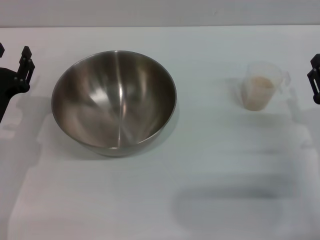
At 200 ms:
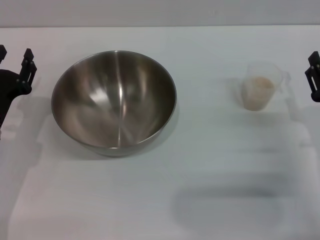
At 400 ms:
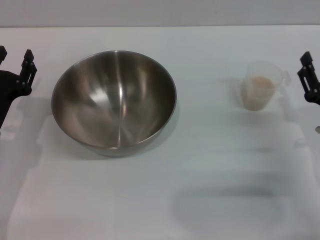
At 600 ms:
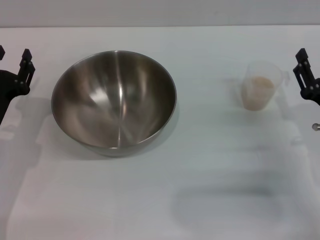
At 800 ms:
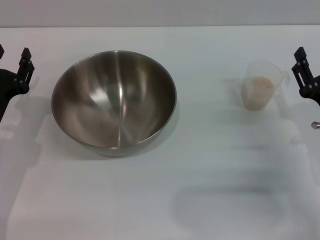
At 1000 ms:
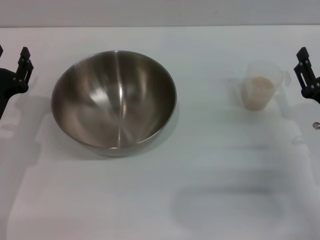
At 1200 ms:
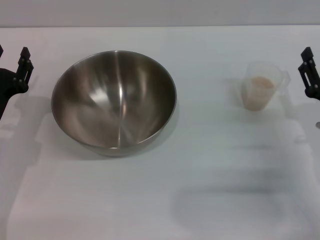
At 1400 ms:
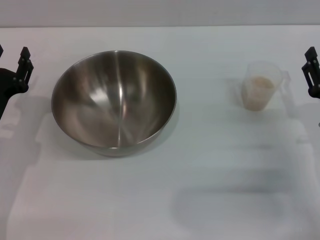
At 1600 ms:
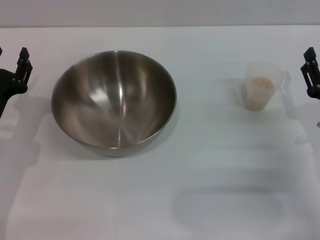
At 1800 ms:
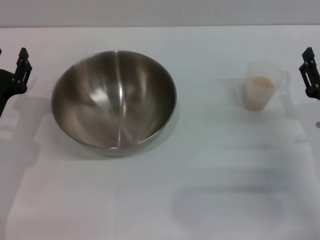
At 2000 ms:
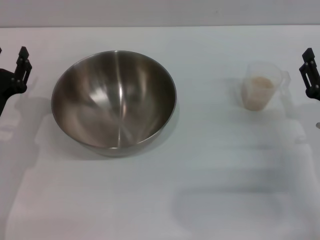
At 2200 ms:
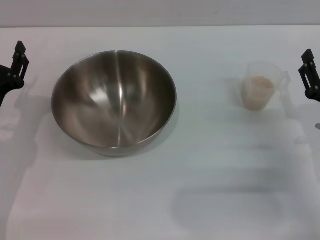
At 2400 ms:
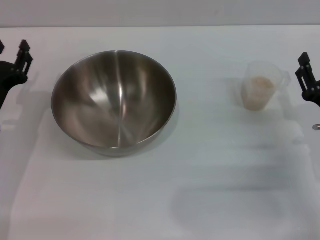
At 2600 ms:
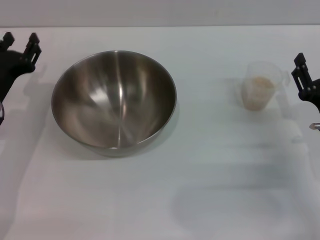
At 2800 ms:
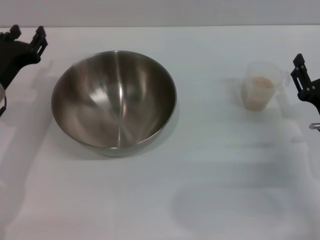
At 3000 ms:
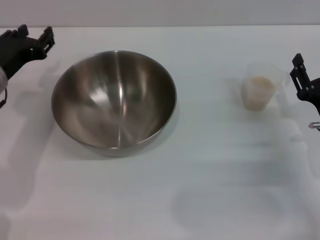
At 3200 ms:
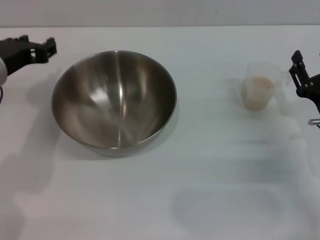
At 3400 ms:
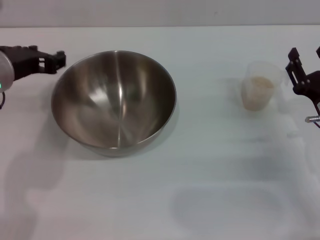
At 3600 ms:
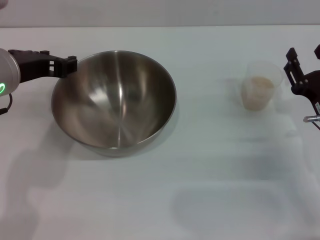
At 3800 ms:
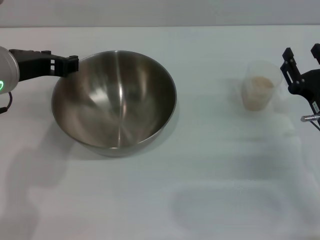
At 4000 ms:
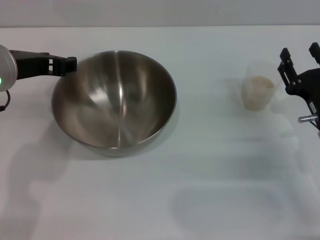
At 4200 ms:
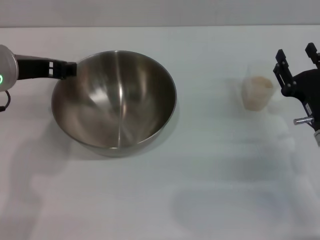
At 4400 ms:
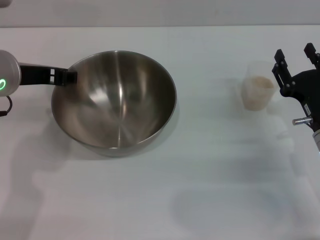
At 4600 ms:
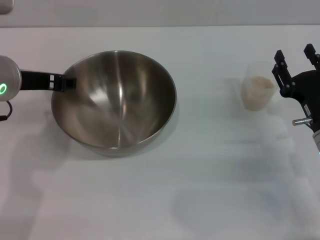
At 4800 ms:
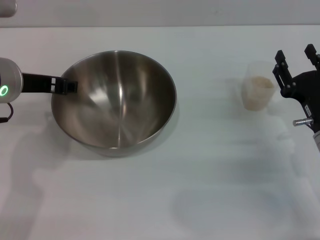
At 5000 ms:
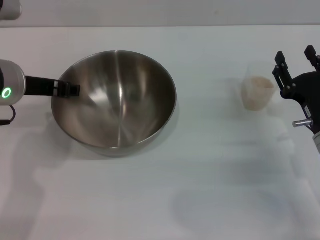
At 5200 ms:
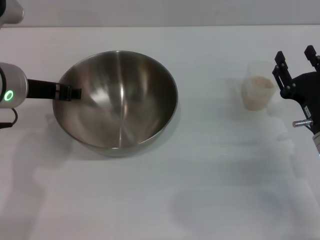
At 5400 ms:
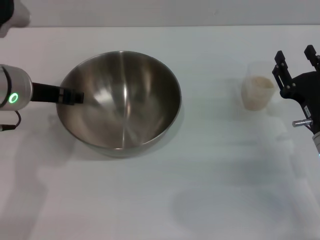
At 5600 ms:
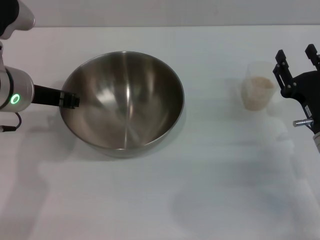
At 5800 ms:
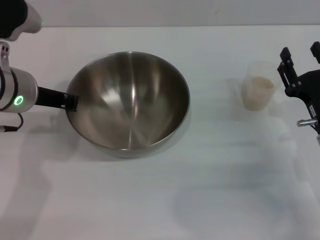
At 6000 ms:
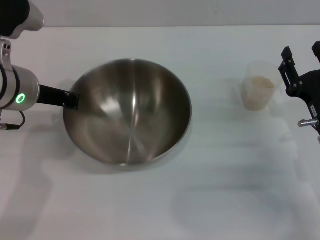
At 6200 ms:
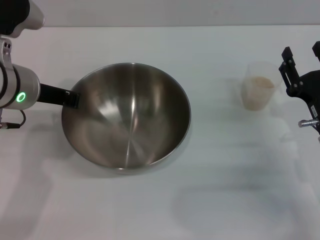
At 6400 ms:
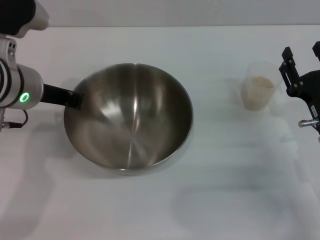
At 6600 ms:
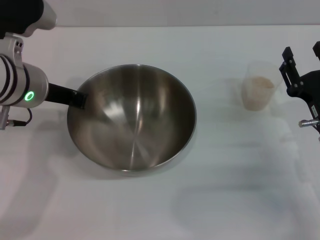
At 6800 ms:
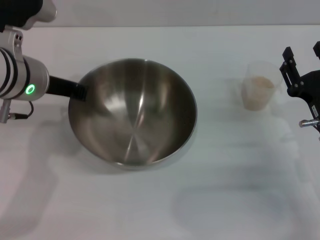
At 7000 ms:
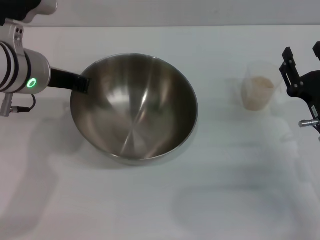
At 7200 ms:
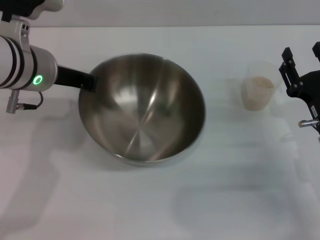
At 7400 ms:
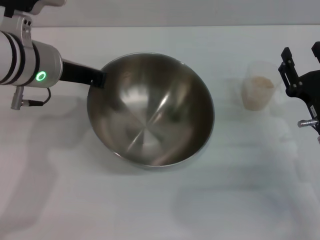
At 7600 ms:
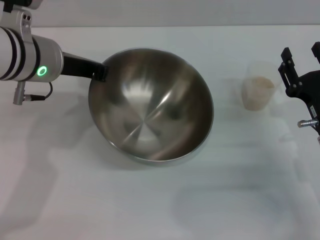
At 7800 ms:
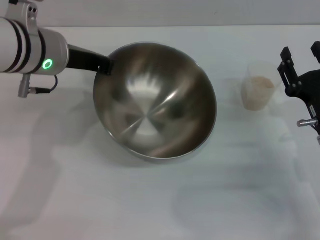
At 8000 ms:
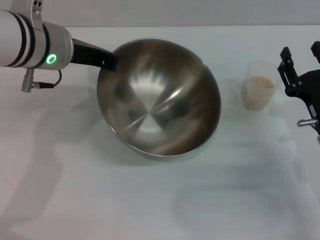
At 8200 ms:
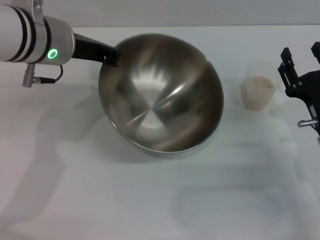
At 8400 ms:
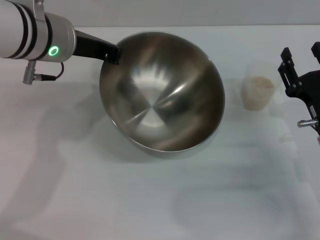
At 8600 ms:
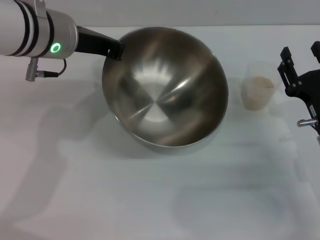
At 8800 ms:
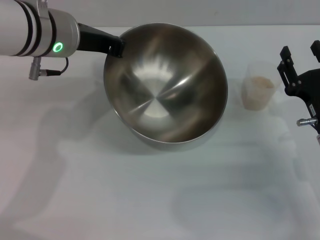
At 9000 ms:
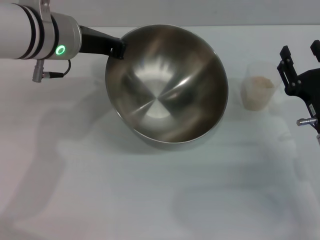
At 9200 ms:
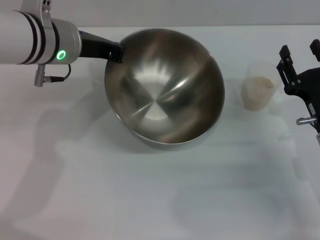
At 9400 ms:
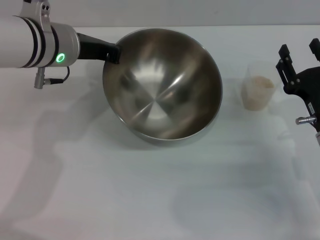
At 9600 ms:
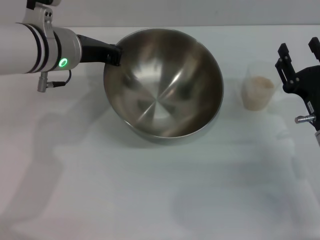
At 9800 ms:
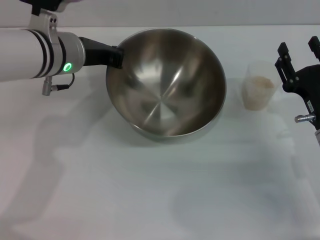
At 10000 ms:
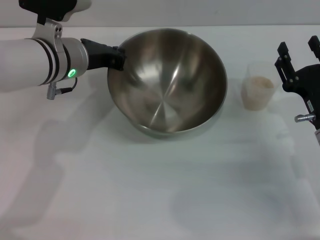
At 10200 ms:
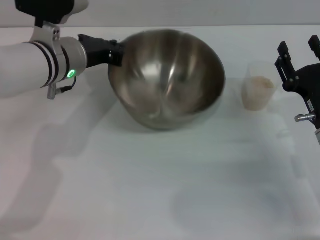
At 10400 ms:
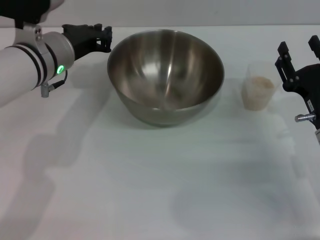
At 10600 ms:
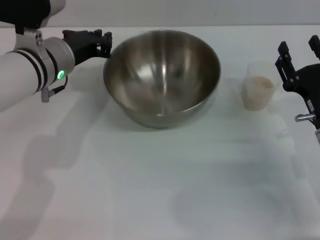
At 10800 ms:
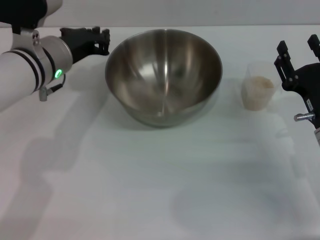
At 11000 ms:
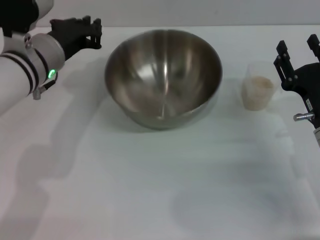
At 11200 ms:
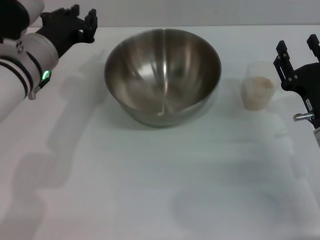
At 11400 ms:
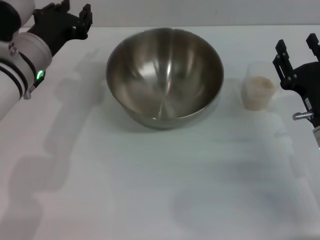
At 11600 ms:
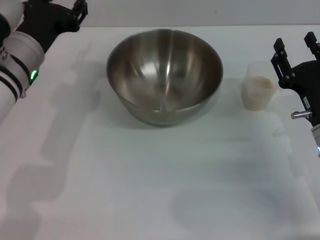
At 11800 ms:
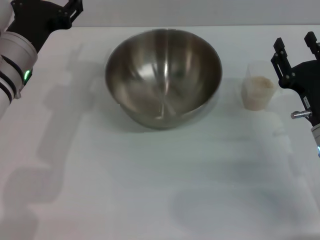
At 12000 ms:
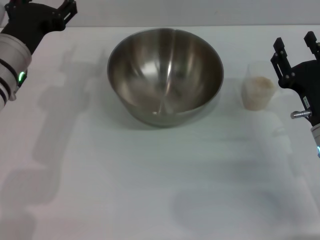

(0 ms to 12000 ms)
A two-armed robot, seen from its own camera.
Task of the whole recording: Place the bowl in the middle of the table with one hand and pour the rice from the grain cup into it with the other hand.
Step, 0 ms - 7400 ms: Pick up the bowl with the left gripper.
Step, 7600 ms - 11400 ms: Place the bowl in the center of view with the left gripper.
0 ms - 1600 ms: The grippers stay close to where they were, moving slightly.
1600 ms - 3000 ms: The left gripper moves upward, about 10 cm.
3000 ms - 4400 ms: The left gripper heads upward, covering approximately 5 cm.
4400 ms - 6000 ms: The left gripper closes.
9000 ms - 10400 ms: The left gripper travels downward by roughly 5 cm.
10400 ms - 12000 ms: The left gripper ends up roughly 5 cm from where it was, and opens up.

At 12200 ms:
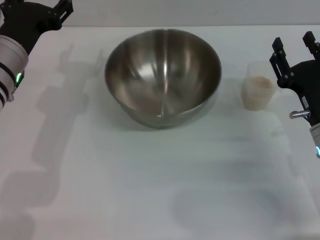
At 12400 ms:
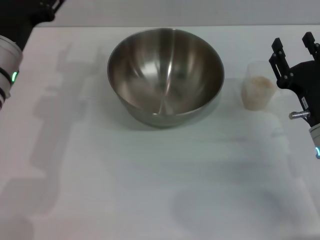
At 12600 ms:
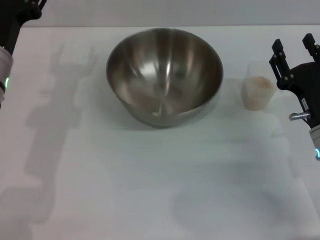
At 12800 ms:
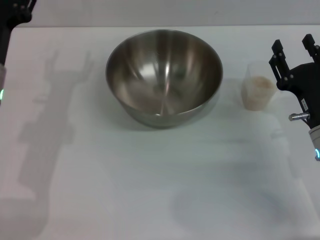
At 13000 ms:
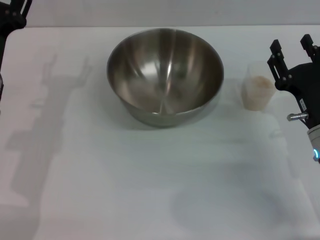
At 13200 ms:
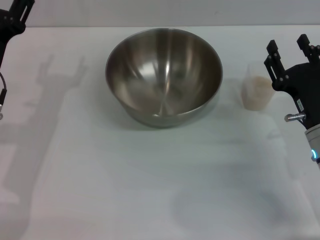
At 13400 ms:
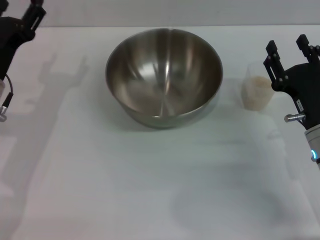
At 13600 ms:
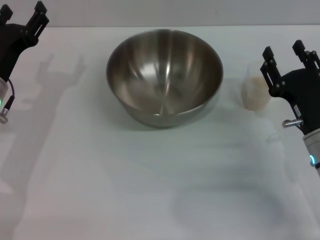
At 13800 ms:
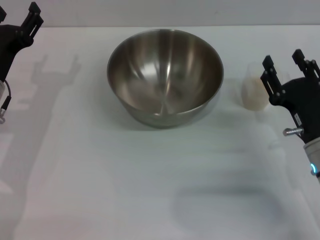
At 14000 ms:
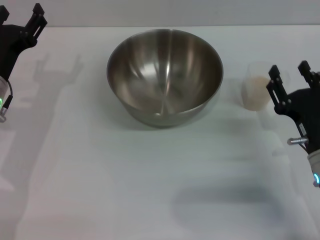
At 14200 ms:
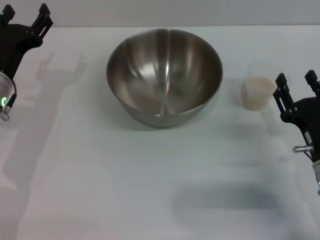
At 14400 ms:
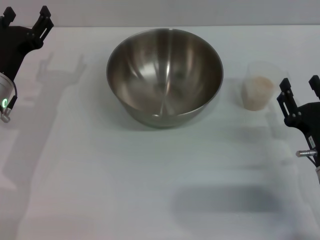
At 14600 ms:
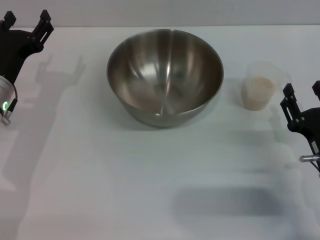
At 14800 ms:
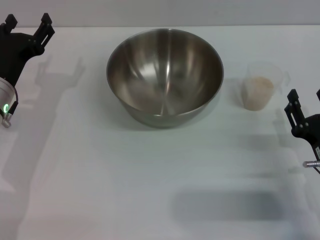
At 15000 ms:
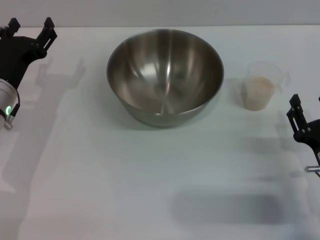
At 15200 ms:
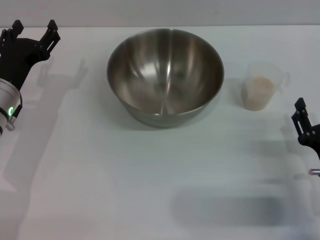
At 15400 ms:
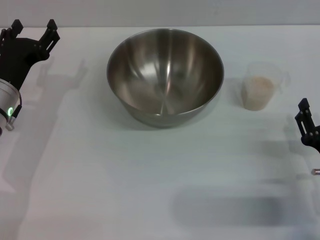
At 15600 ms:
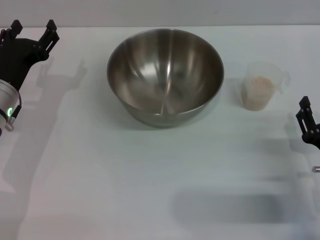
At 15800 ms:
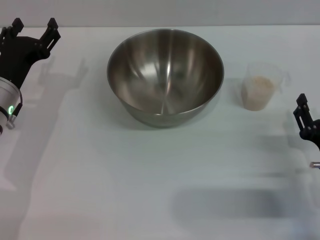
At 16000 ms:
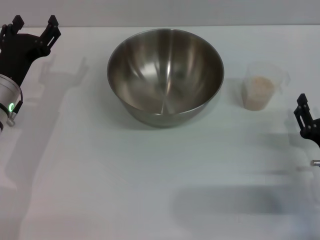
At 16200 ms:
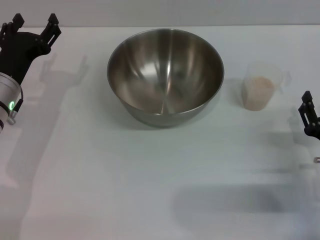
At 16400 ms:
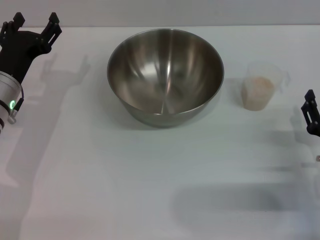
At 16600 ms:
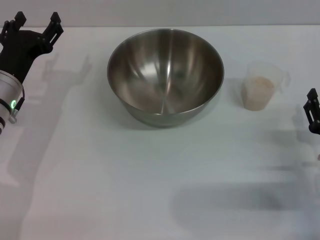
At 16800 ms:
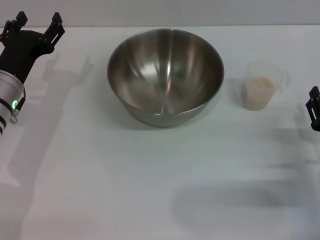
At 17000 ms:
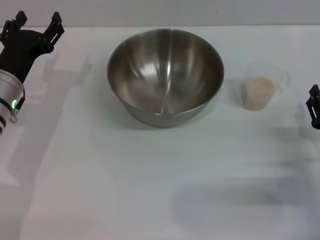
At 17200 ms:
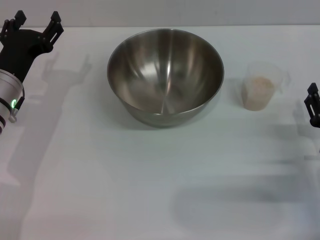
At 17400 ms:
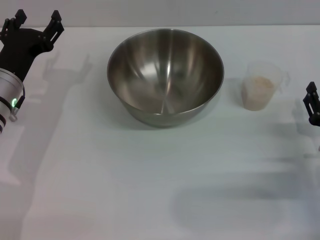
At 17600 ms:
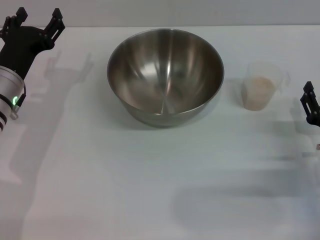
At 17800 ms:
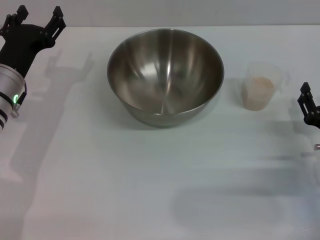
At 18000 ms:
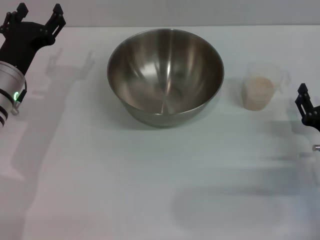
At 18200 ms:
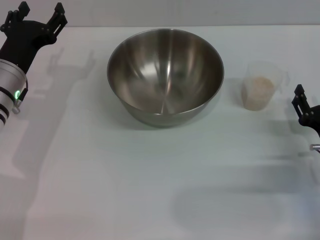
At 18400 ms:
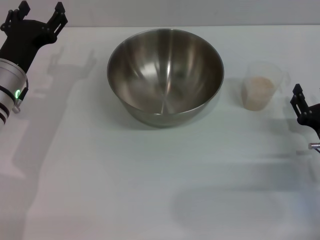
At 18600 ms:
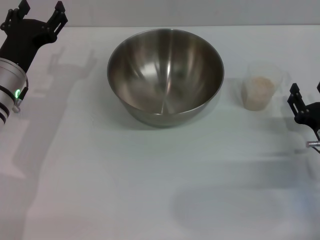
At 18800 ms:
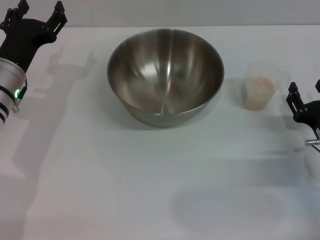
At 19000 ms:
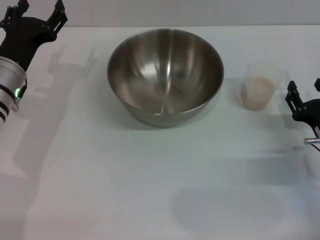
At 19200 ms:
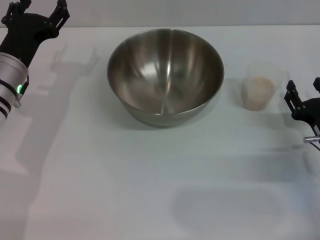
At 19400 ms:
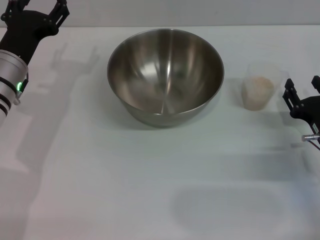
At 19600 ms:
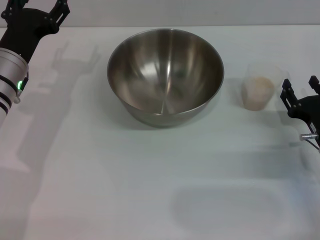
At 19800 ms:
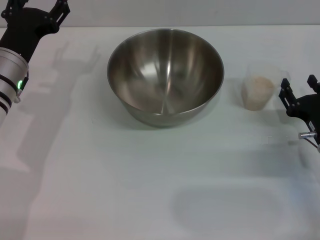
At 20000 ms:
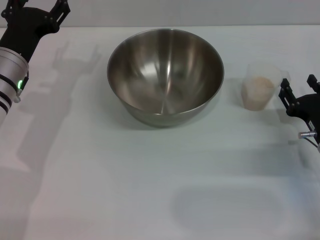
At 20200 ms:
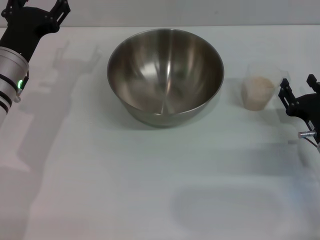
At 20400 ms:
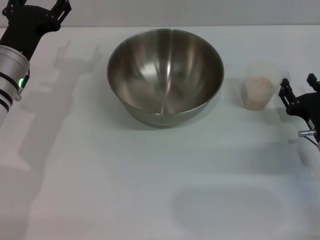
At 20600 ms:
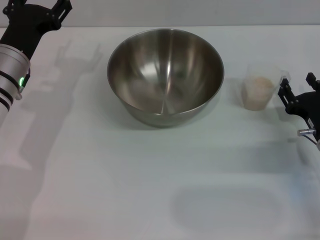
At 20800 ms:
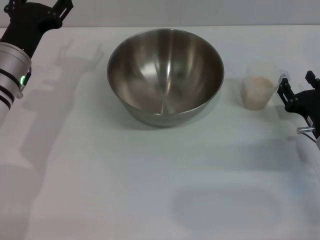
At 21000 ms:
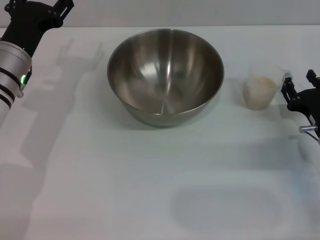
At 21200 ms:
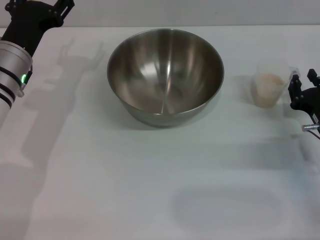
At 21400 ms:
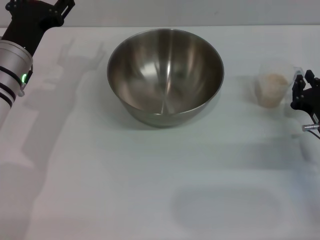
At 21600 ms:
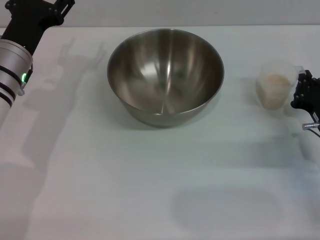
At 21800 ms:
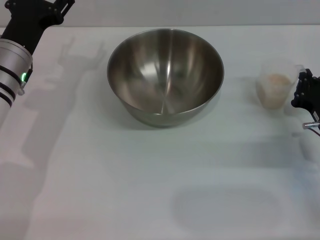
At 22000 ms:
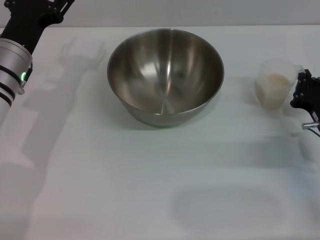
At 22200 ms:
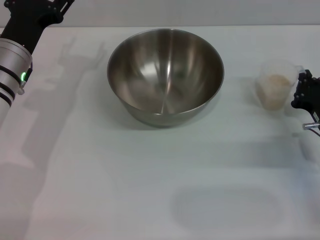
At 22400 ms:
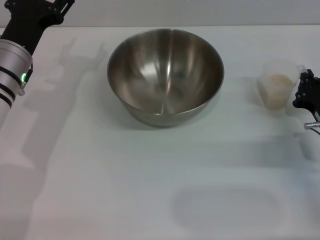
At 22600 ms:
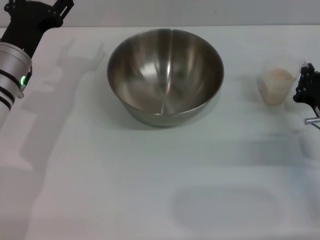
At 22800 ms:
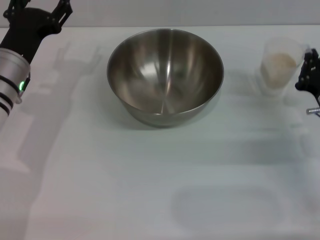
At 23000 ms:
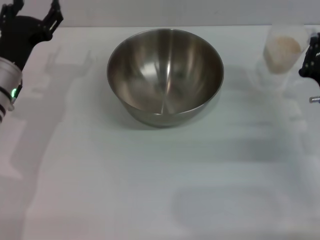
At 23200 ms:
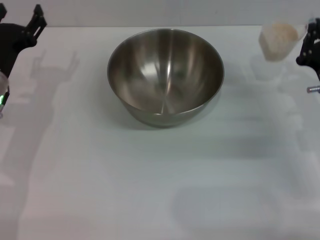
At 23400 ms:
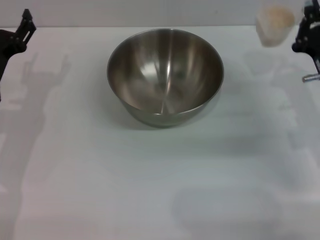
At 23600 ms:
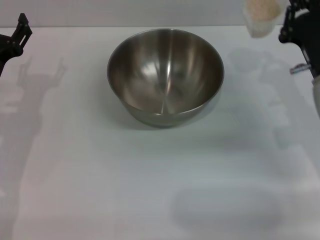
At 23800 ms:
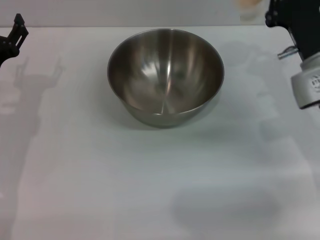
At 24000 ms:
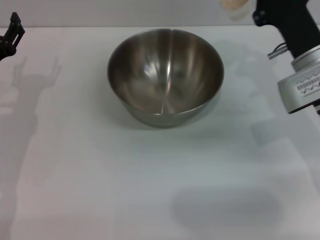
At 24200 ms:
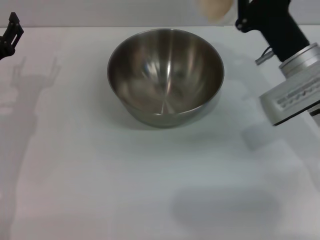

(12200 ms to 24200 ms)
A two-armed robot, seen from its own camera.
Task of the whole recording: Place the bowl in the middle of the table with one hand and pour the rice from the grain cup into it with the other hand.
Step, 12200 ms - 23400 ms: Pick up the cup with rice in it with the right gripper.
12200 ms - 13800 ms: The left gripper heads downward, covering roughly 5 cm.
13800 ms - 15200 ms: The right gripper heads backward, covering approximately 5 cm.
15200 ms - 18200 ms: The grippers make only small movements.
18200 ms - 21200 ms: The grippers make only small movements.
21200 ms - 22600 ms: The right gripper closes.
22600 ms - 24200 ms: The left gripper is displaced to the left by roughly 5 cm; the right gripper travels upward, to the left and forward by some 15 cm.
